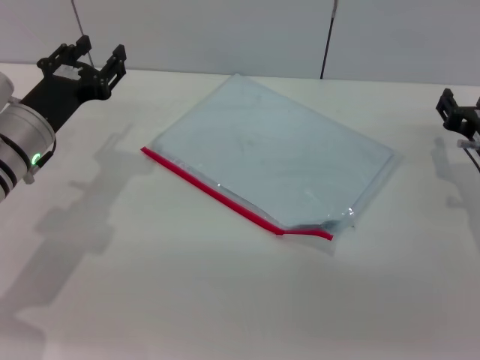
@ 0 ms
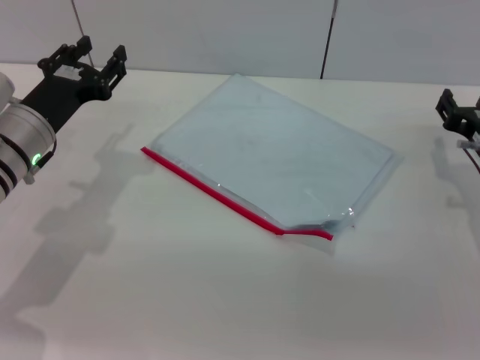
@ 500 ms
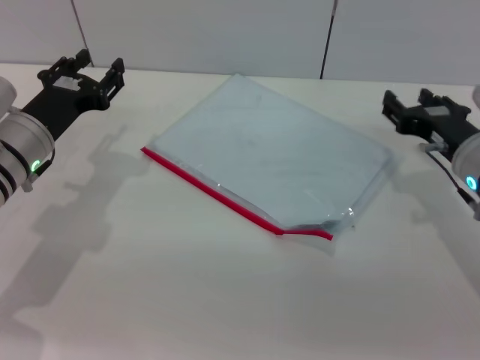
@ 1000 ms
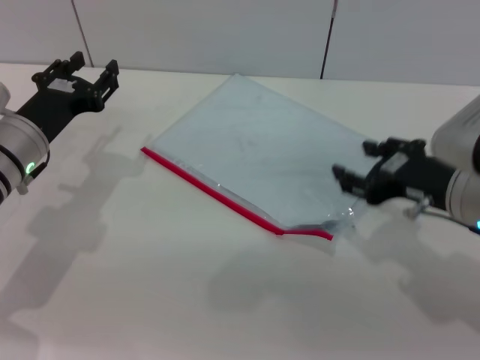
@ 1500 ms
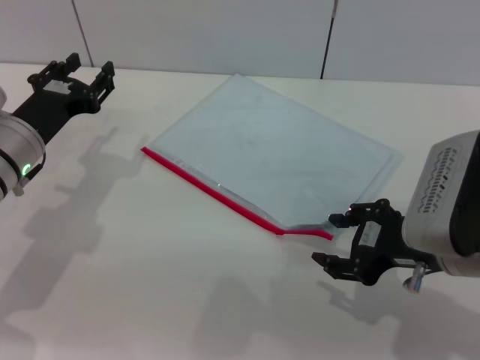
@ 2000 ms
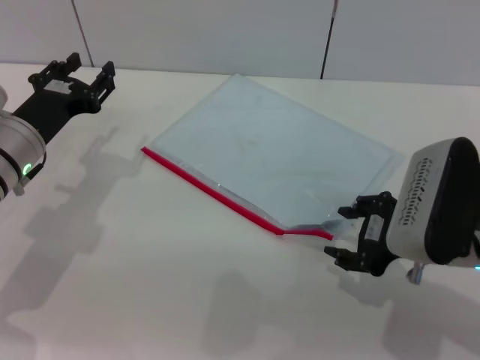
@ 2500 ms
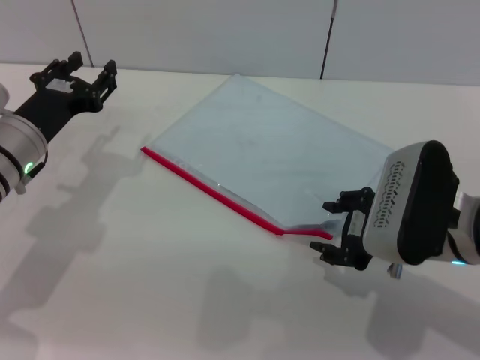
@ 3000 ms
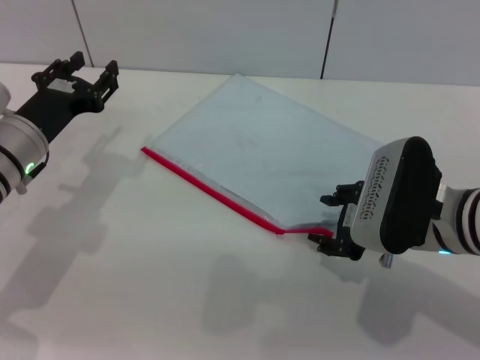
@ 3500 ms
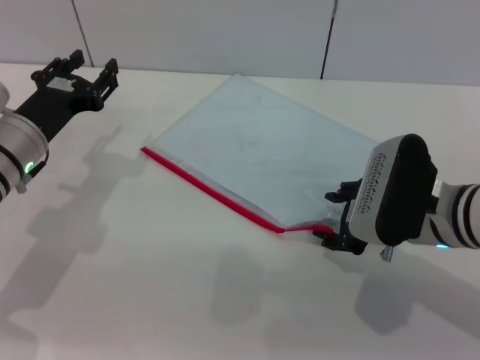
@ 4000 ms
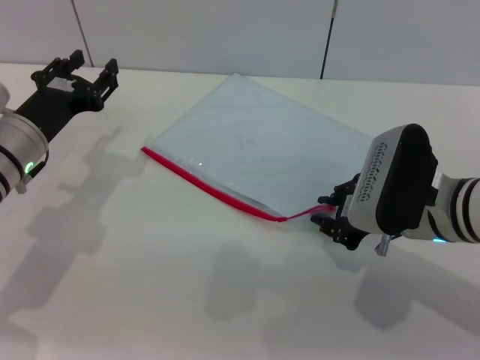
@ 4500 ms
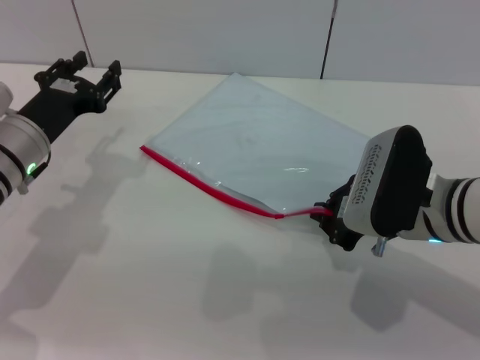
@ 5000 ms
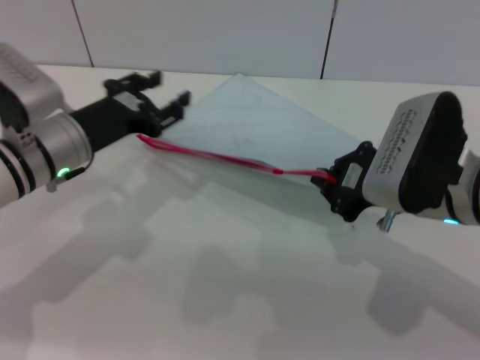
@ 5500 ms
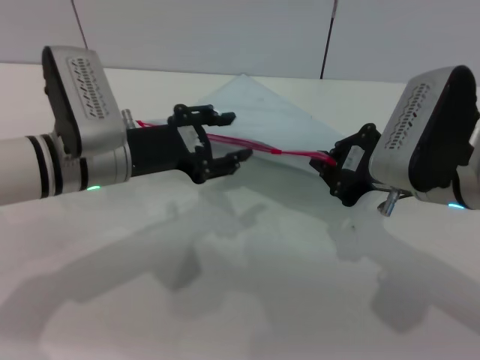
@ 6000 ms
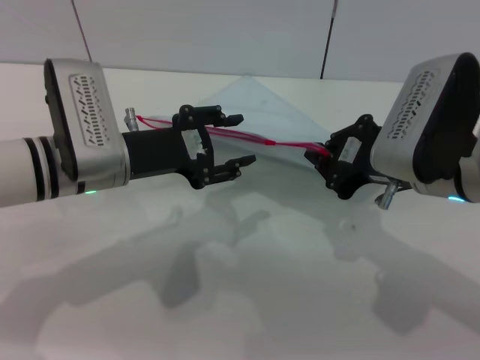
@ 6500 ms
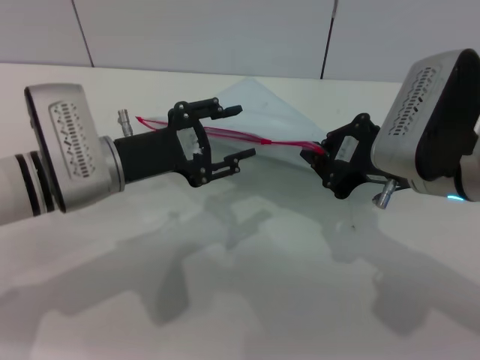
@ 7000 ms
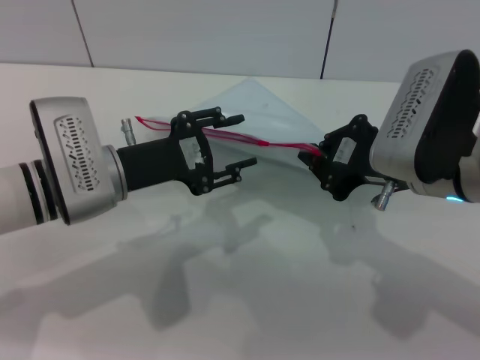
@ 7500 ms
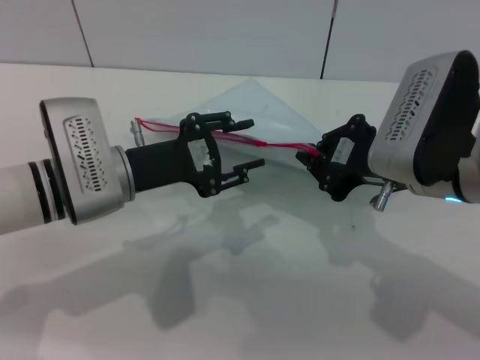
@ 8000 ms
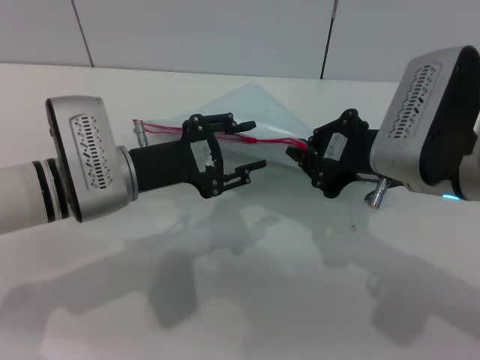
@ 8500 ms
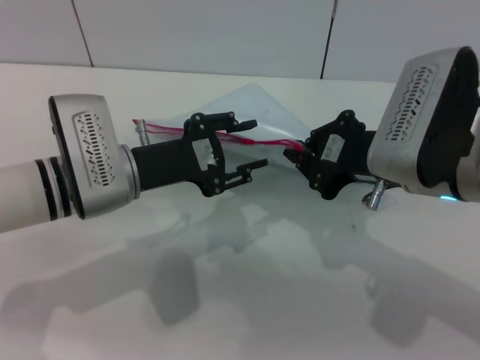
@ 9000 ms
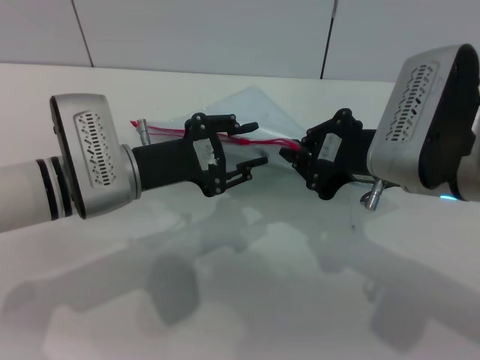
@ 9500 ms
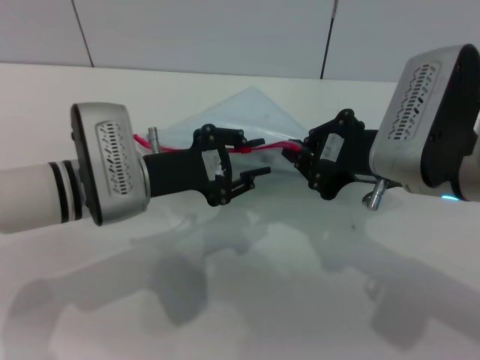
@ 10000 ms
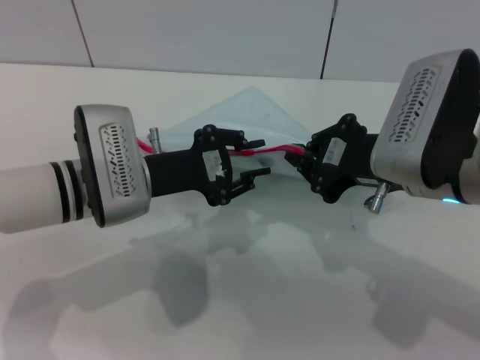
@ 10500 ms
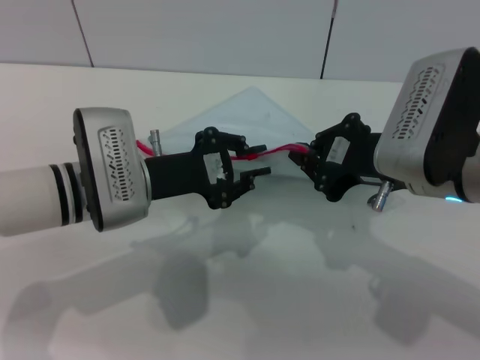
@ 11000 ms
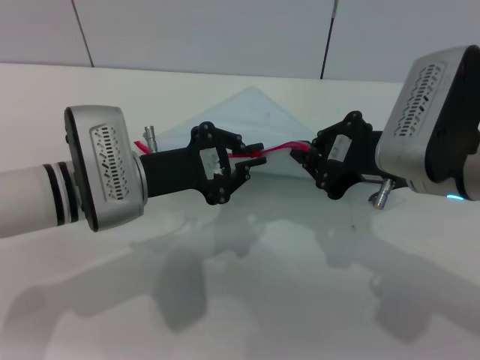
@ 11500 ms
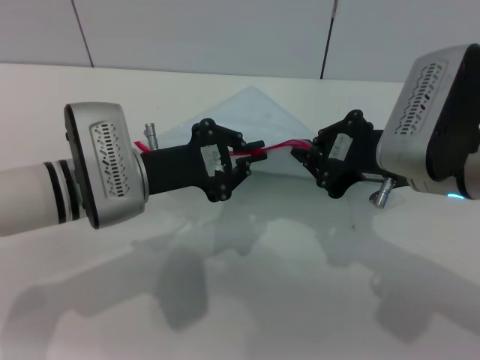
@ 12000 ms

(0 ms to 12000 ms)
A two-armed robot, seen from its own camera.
Step, 0 ms - 5500 ms: Pick up the transparent plastic bag with the right gripper.
0 ms - 2000 ms: The right gripper moves backward, upward and to the left, some 15 cm.
2000 ms - 4000 ms: The right gripper moves about 5 cm.
4000 ms - 6000 ms: The left gripper heads to the right, covering approximately 10 cm. The right gripper goes about 5 cm upward, and closes.
8000 ms - 10000 ms: There are only small adjustments of the grippers.
10000 ms - 12000 ms: The left gripper closes its fingers.

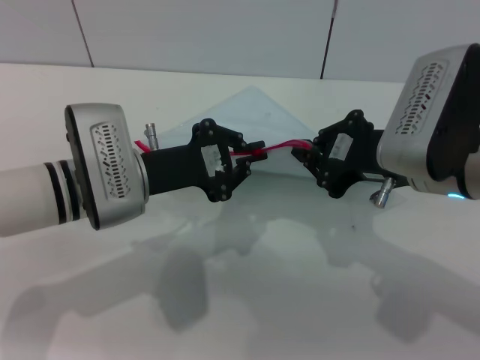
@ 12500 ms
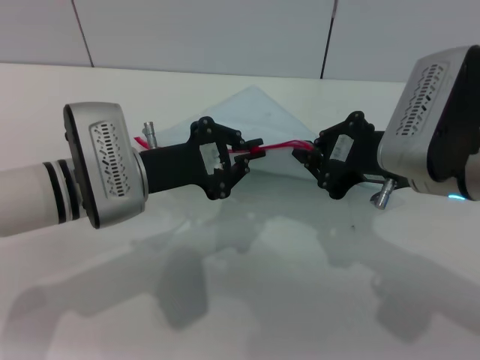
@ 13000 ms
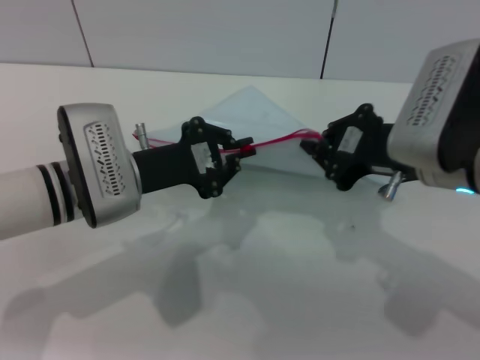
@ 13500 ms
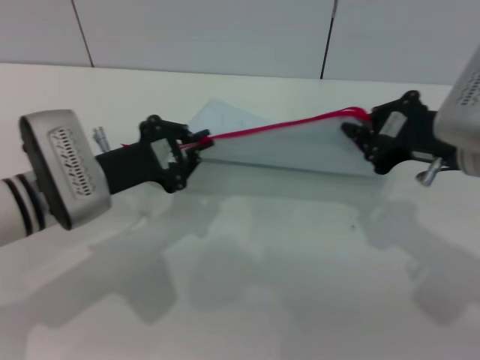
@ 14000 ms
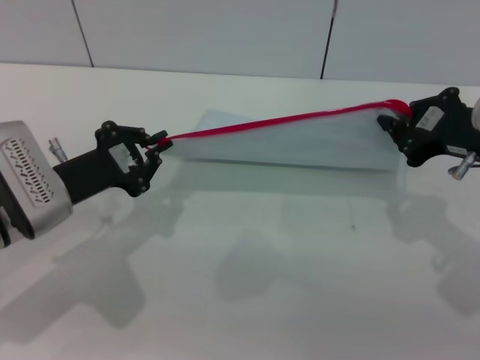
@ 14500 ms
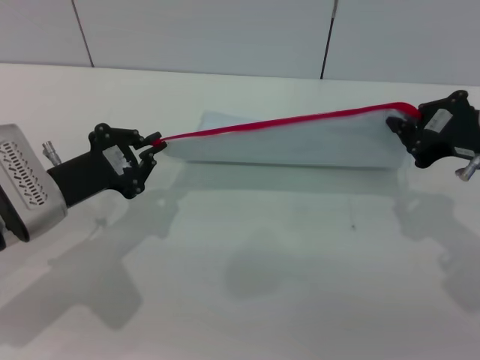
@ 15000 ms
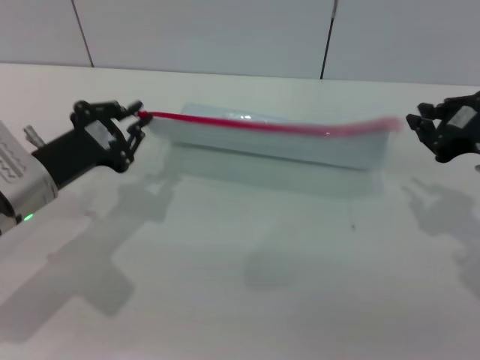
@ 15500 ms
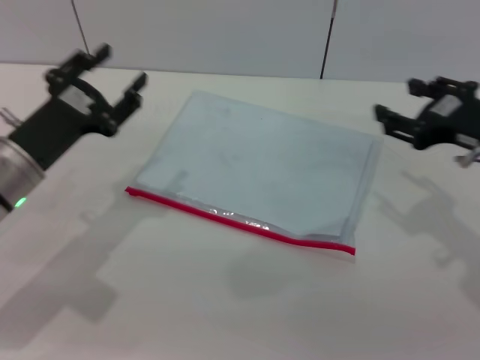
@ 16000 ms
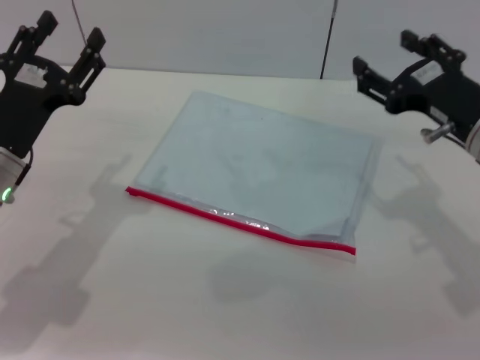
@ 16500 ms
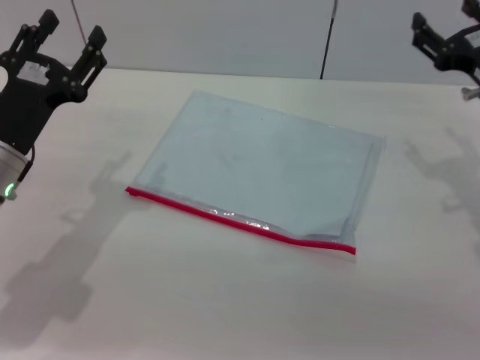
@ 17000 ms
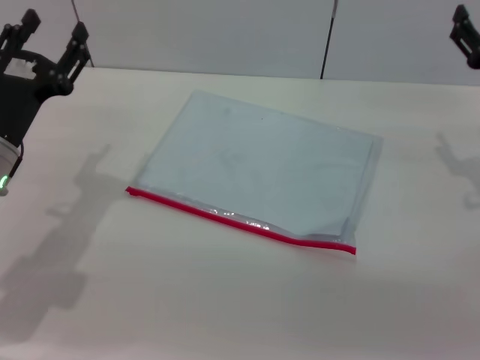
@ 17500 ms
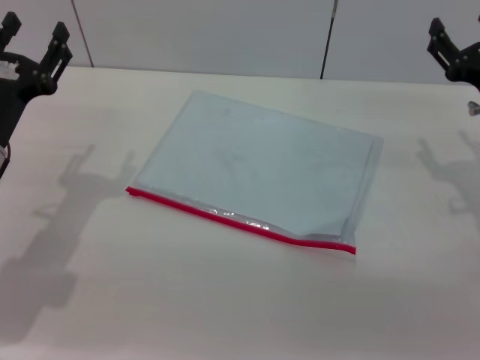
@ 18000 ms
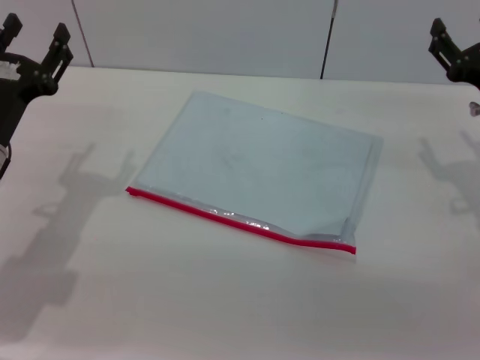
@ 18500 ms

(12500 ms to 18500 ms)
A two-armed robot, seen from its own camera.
Step, 12500 ms - 15500 ms: Pulling up the zipper on the transparent plastic bag with the left gripper to close it.
Step, 16000 ms - 17000 ms: Place the transparent plastic bag.
12500 ms - 14500 ms: The right gripper moves to the right, some 5 cm; the left gripper is displaced to the left by roughly 5 cm.
14500 ms - 16500 ms: The left gripper opens. Meanwhile the right gripper opens its fingers.
16500 ms - 18500 ms: The right gripper shifts by some 10 cm.
